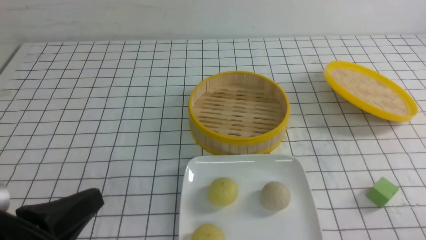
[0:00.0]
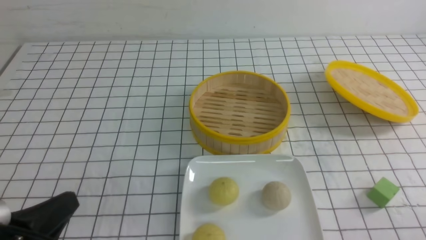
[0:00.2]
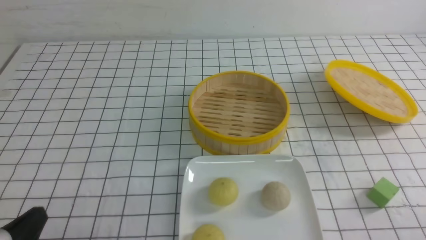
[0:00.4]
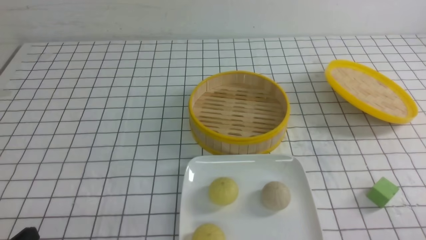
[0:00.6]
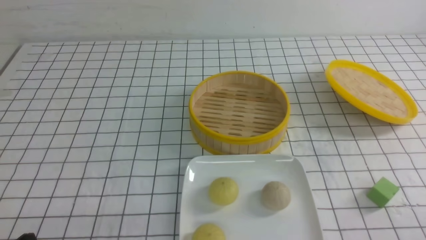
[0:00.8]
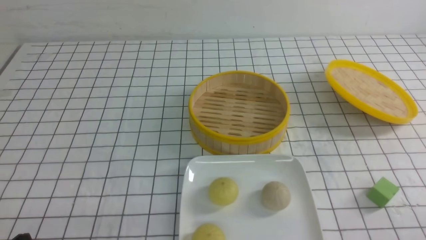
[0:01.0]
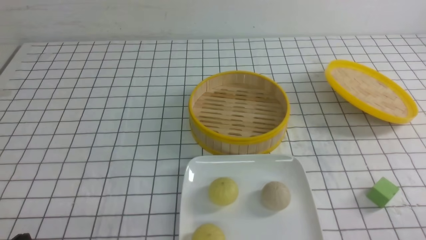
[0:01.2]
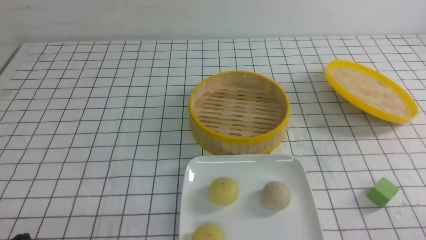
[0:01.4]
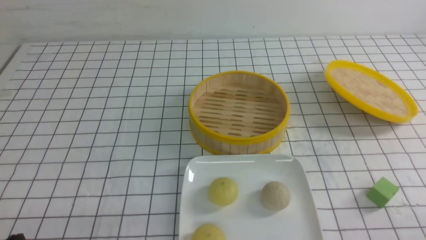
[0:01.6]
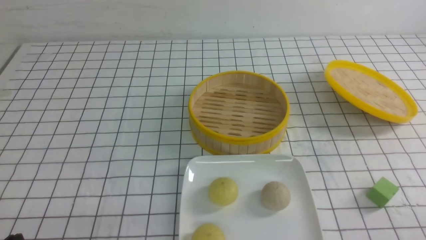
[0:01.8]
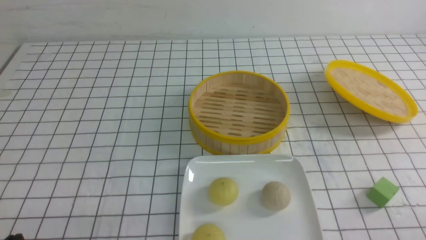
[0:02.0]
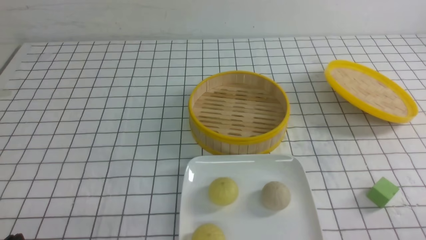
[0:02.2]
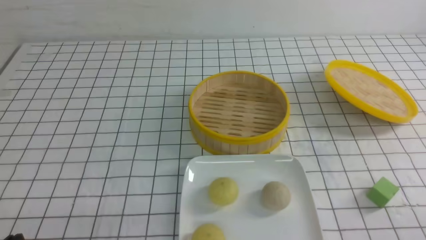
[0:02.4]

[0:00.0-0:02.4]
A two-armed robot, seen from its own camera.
0:00.0 to 0:01.2: The left gripper is displaced downward by some 10 cm.
0:01.2 to 0:02.4: The two grippers keep their place.
